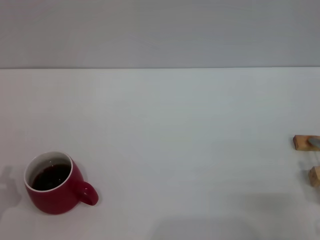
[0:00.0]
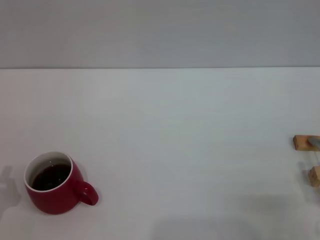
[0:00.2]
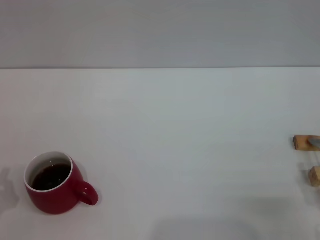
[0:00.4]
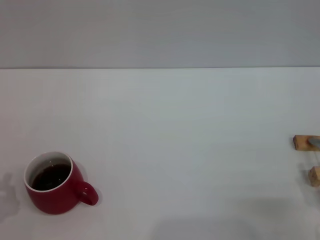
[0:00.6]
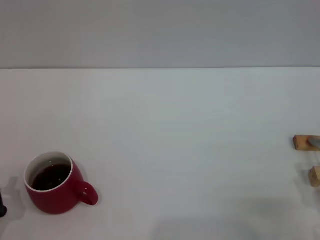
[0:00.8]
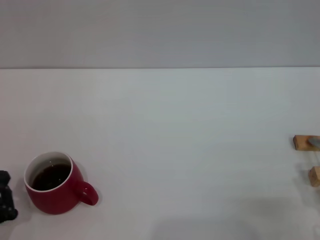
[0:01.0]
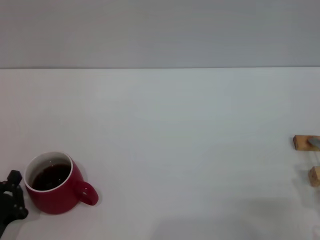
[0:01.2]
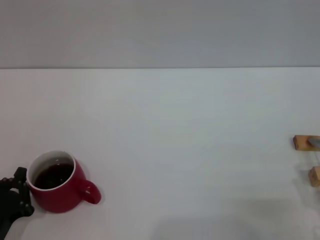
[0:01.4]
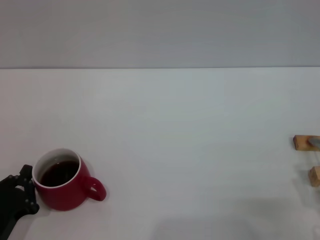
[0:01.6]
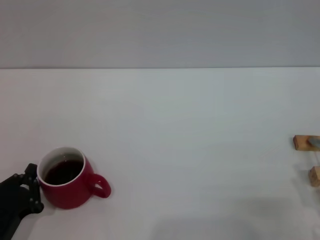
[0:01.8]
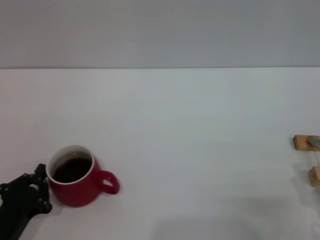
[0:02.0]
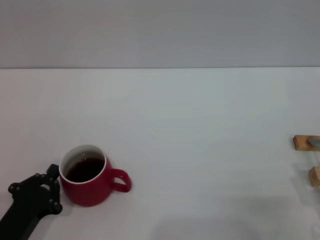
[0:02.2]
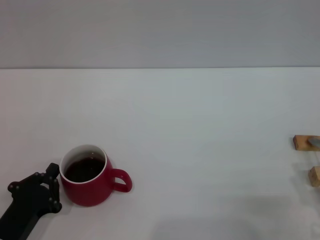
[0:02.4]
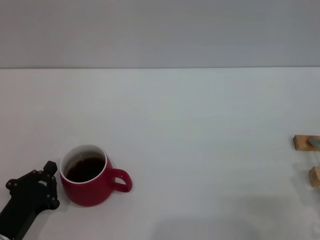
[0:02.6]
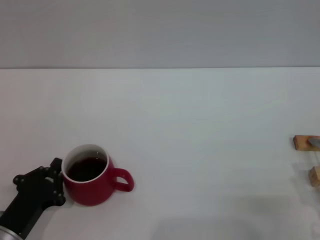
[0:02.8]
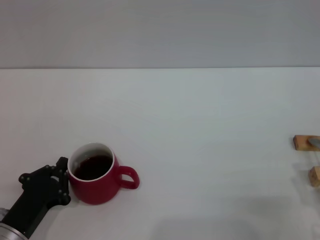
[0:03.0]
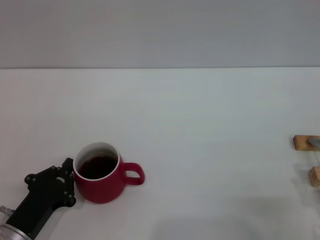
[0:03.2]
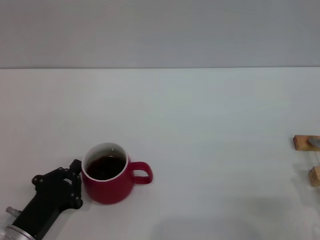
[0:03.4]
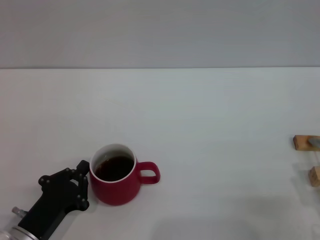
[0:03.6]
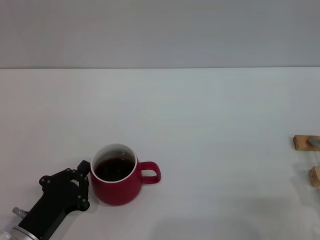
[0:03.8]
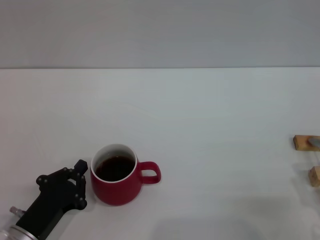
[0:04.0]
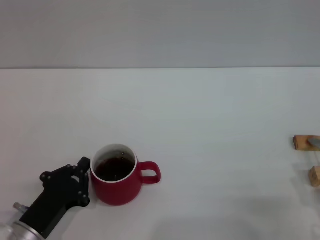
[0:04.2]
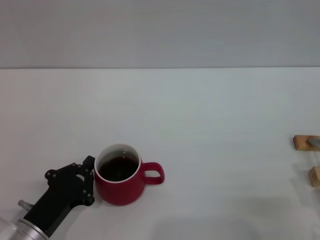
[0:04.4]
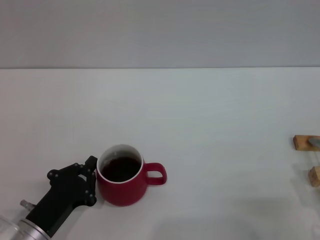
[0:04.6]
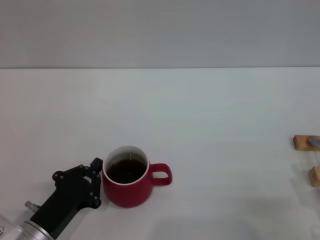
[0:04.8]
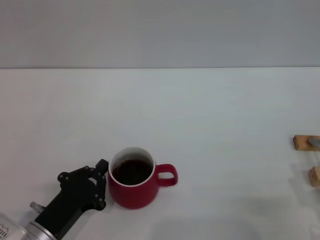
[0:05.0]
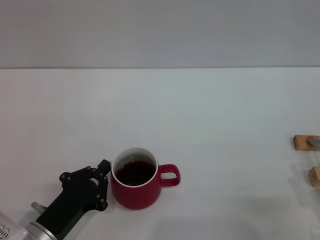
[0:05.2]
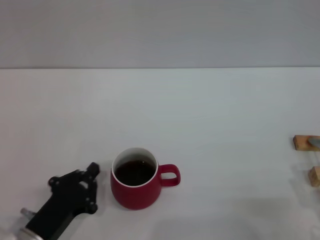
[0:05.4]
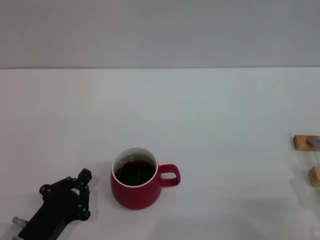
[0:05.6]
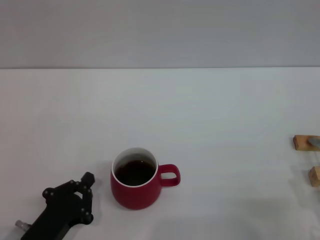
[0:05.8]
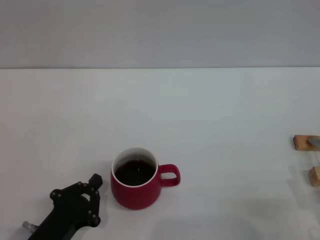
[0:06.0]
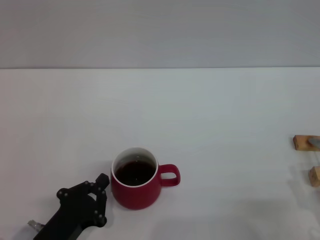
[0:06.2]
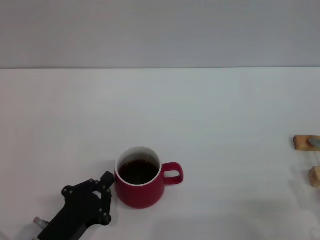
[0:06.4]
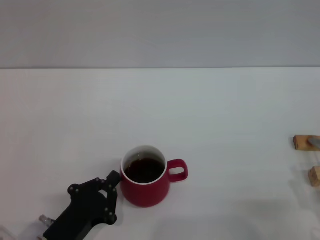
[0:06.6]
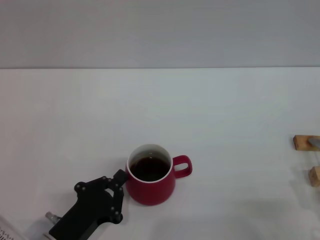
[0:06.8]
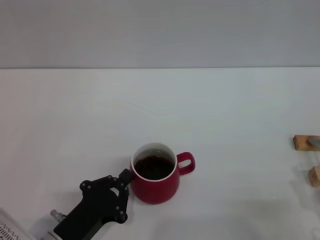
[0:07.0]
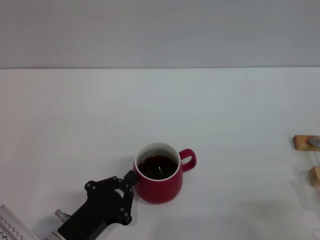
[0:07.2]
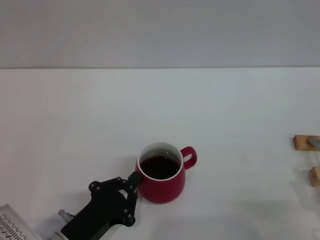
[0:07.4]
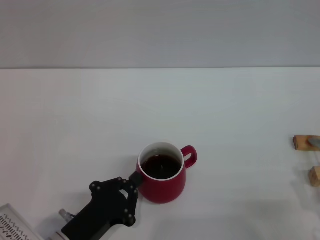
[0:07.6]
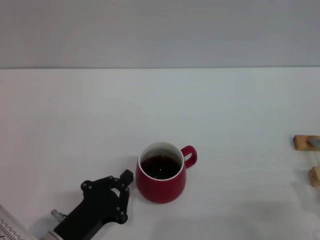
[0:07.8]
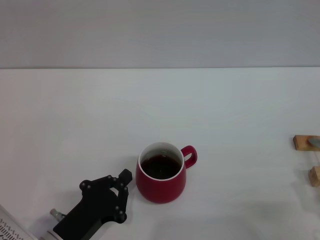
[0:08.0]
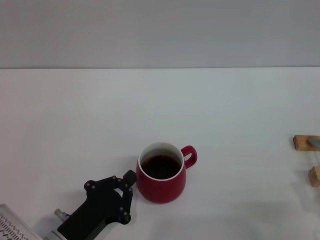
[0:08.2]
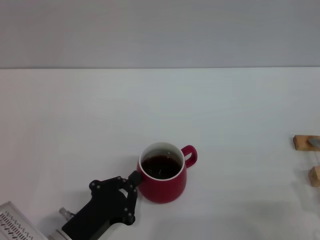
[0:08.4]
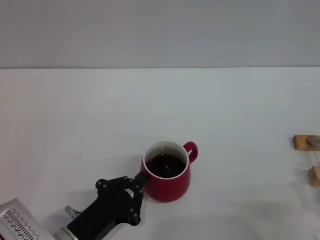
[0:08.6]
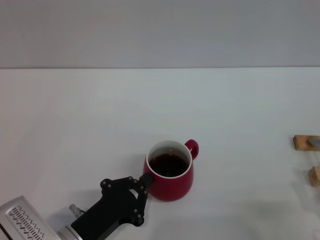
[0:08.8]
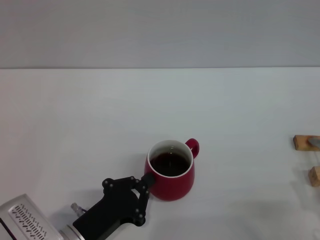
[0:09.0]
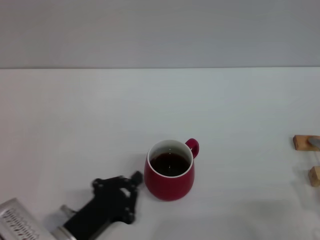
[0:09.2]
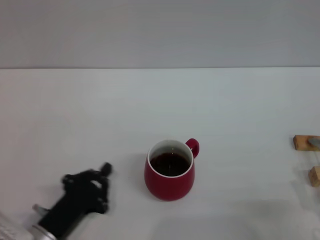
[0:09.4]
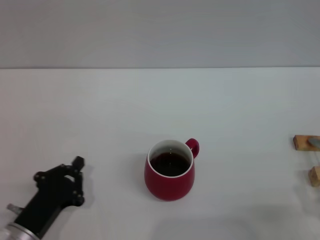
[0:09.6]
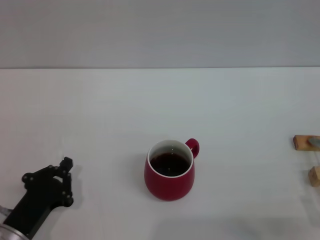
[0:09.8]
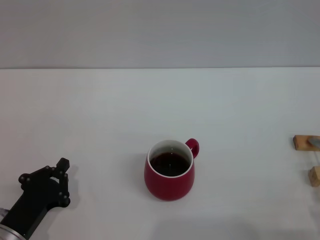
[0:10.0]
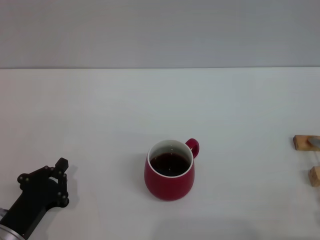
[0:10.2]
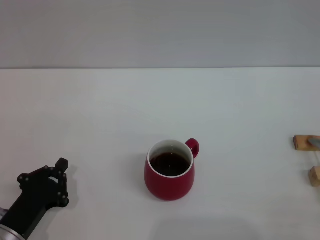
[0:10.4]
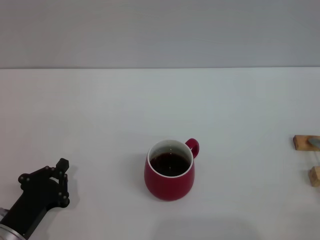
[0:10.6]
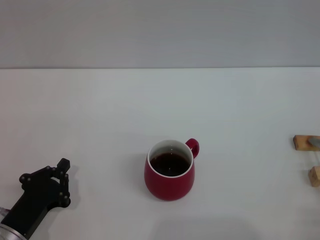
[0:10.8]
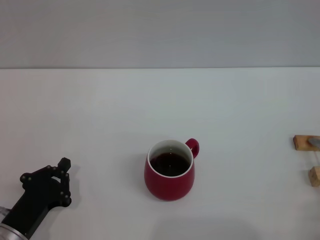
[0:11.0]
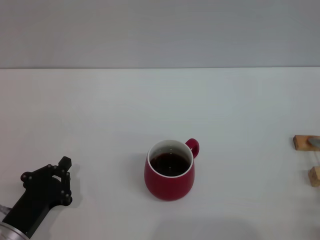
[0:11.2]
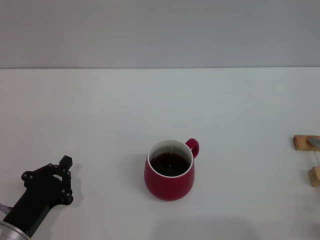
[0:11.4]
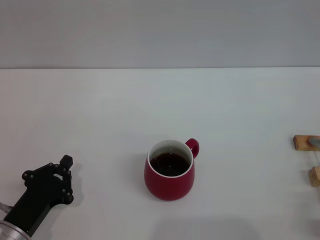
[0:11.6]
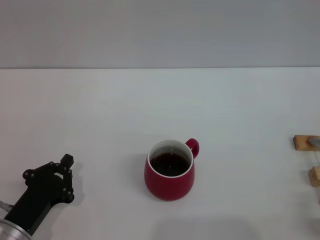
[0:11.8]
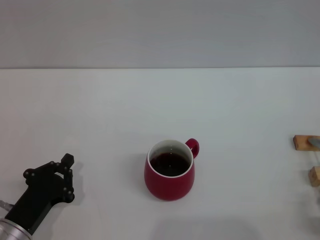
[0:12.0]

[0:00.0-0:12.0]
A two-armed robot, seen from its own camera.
Task of the whole recording: Move the red cup to the center, lift the pink spoon, stir it three times in the cup, and put the spoon into the cup.
Step, 0:00.0 to 0:09.2: Move the cup with coffee to the center of view with the left gripper.
0:00.0 to 0:01.6: The grippers move only a little.
0:01.6 to 0:03.0: The grippers make only small movements.
0:03.0 to 0:06.0: The grippers make only small movements.
0:06.0 to 0:07.6: The grippers stay close to where they were, moving slightly.
0:07.6 to 0:09.0: The two grippers keep their place.
0:09.0 to 0:10.4: The left gripper is displaced to the left by about 10 cm, while the right gripper moves backward, some 5 cm.

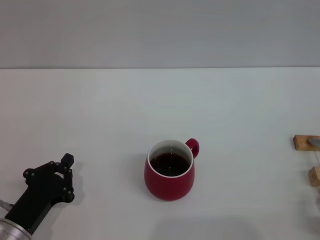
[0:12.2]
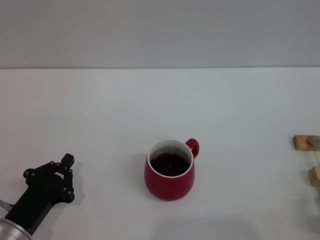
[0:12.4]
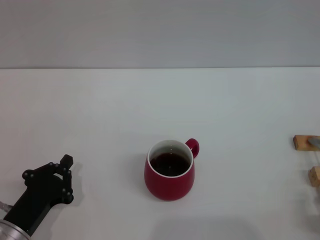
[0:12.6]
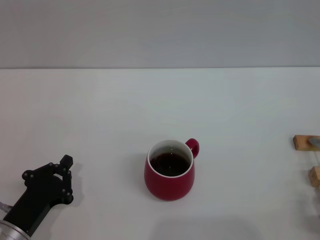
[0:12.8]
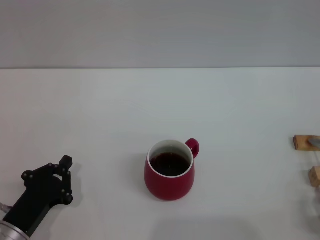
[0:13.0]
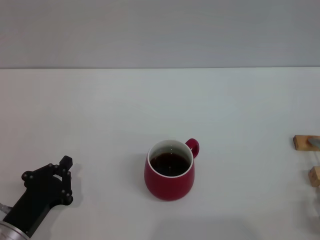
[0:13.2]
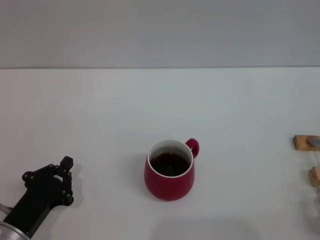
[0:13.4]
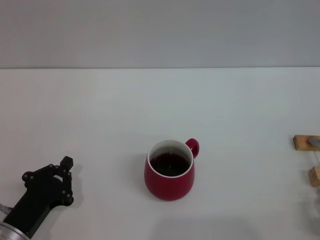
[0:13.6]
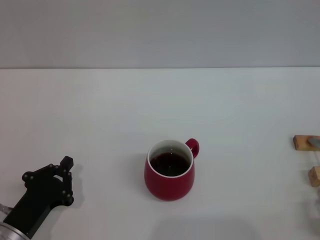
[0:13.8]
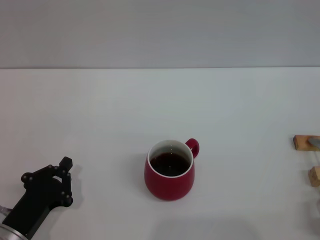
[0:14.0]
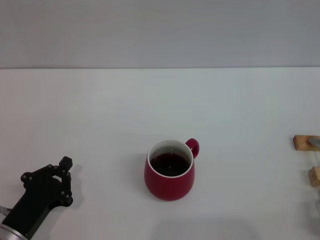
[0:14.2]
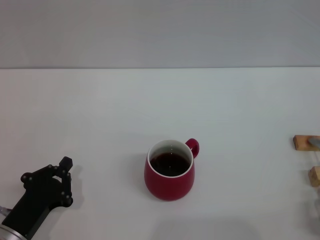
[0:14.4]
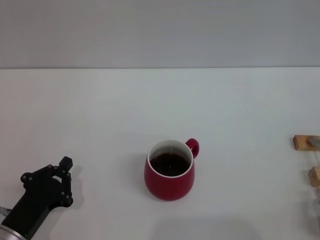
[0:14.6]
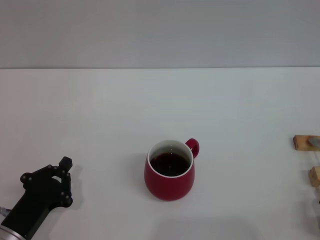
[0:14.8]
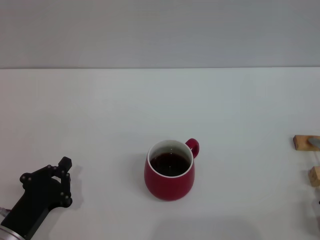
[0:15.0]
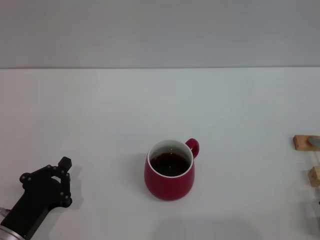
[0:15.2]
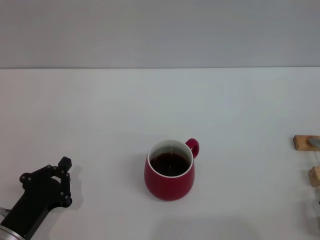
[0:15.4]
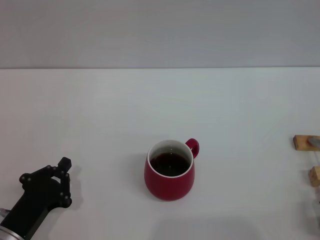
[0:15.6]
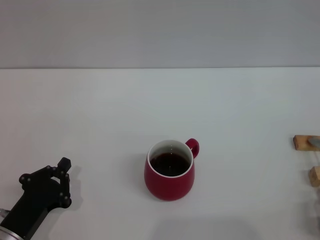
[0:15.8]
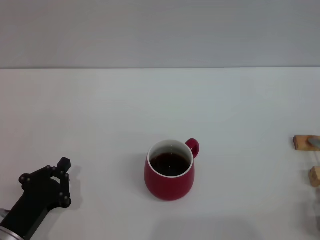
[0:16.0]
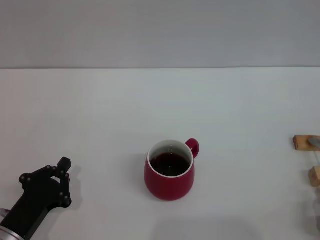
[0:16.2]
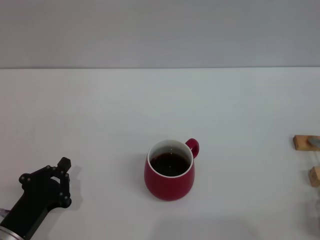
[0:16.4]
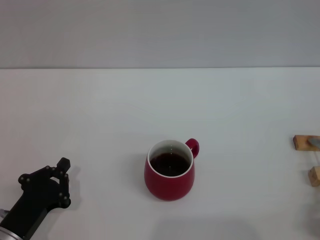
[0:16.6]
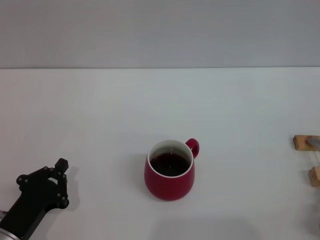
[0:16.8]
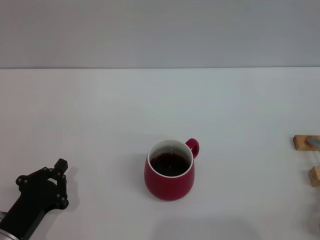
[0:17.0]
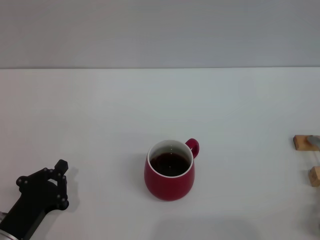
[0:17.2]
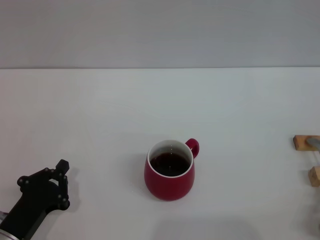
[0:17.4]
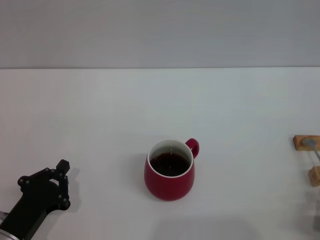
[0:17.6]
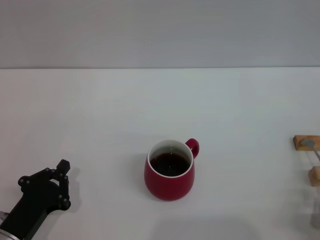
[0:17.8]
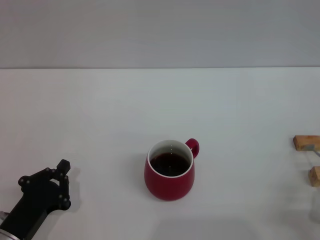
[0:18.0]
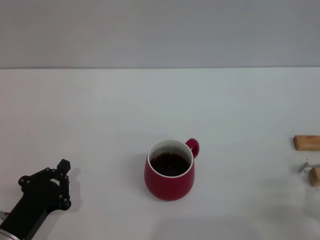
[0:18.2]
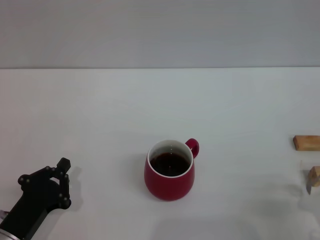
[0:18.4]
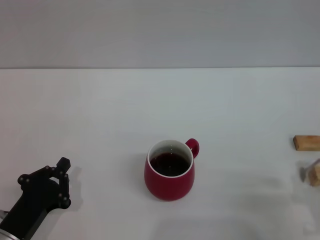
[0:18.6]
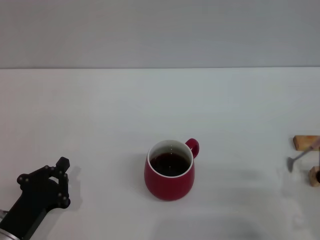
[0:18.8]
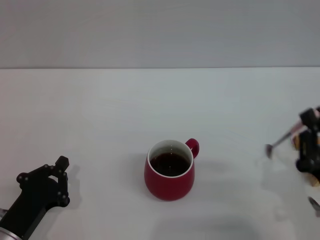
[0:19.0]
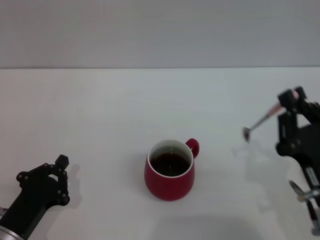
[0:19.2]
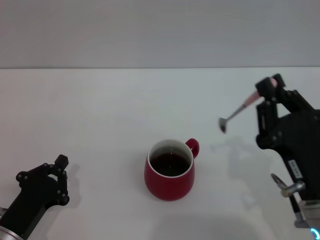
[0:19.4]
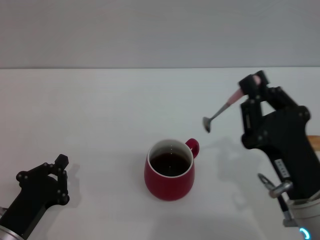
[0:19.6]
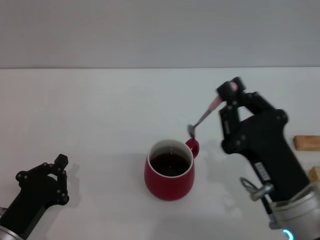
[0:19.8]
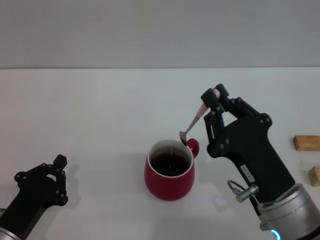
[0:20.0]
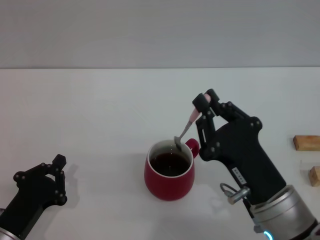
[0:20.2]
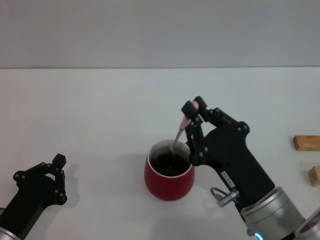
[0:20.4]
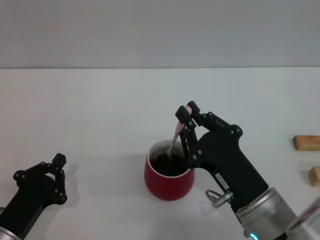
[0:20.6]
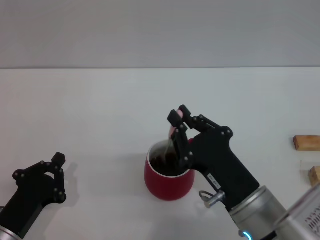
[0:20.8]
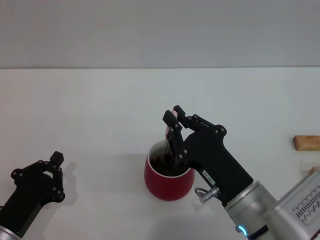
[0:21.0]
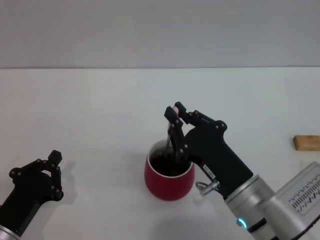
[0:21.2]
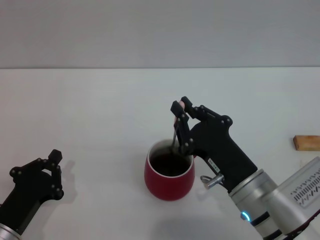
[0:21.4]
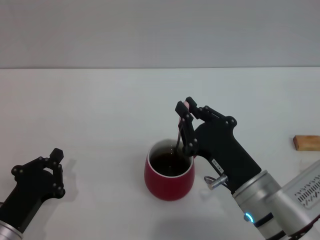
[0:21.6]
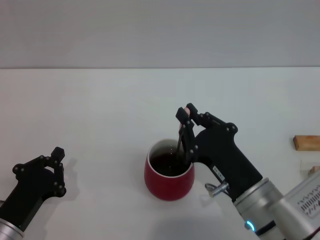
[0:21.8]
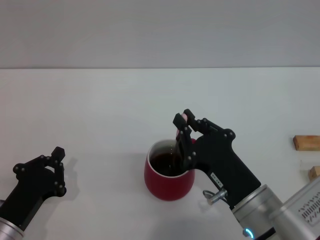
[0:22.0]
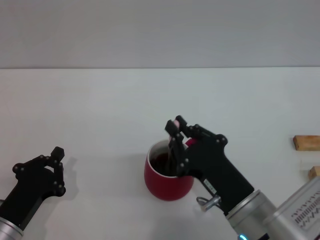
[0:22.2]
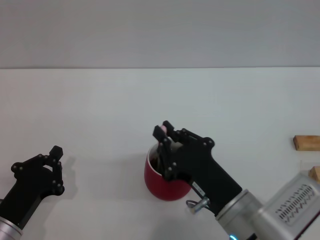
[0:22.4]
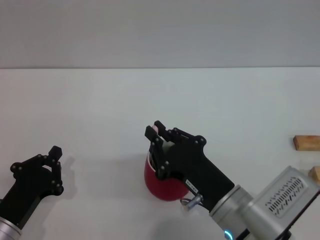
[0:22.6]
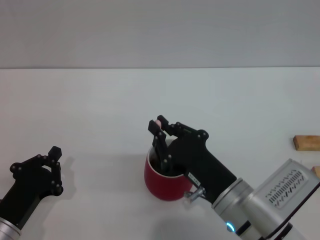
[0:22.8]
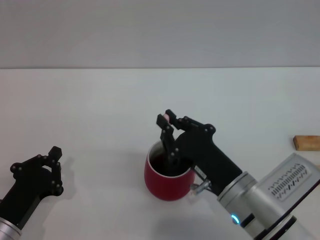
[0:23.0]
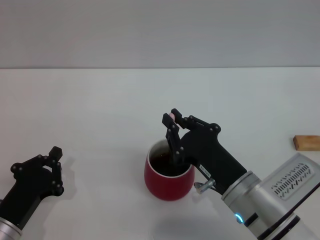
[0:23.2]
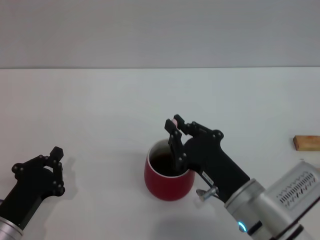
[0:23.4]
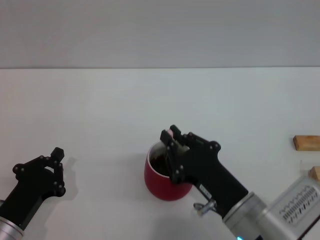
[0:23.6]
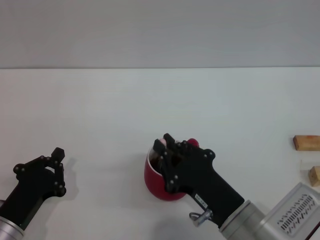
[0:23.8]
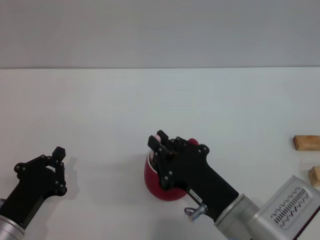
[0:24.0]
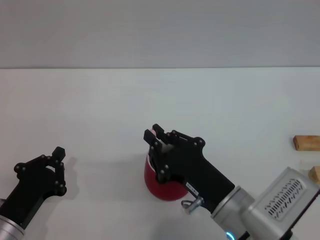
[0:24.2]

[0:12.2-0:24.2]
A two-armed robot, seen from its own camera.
Task of the whole recording: Move the red cup to the center, lift the pink spoon, stir it three times in the cup, and put the spoon into the cup.
0:12.2 to 0:16.6: Both grippers stay put.
0:16.6 to 0:18.2: The right gripper closes up.
0:18.2 to 0:19.8: The right gripper moves to the left, upward and forward, roughly 15 cm.
0:19.8 to 0:21.2: The right gripper ends up approximately 5 cm from where it was.
0:21.2 to 0:24.2: There are only small adjustments of the grippers.
